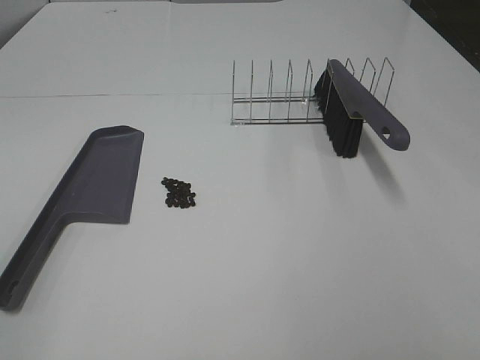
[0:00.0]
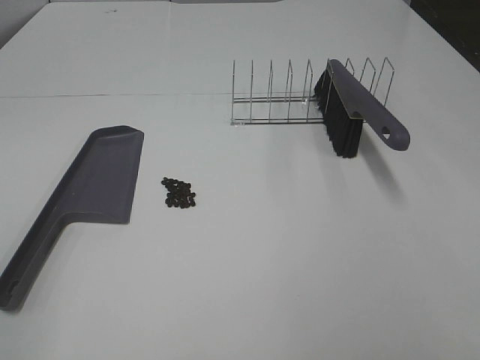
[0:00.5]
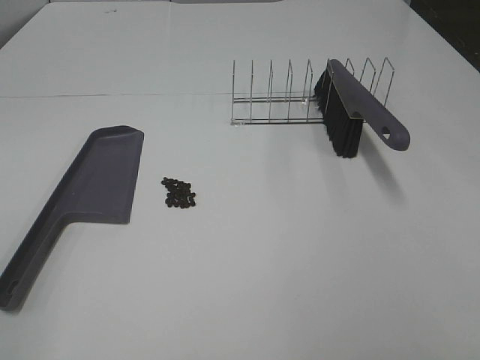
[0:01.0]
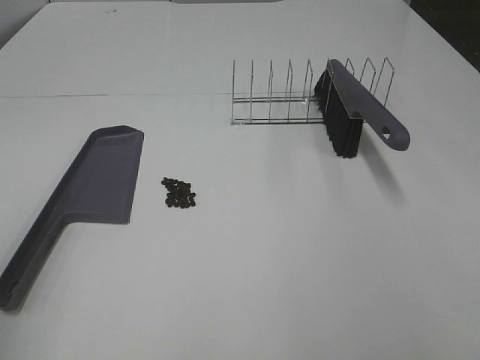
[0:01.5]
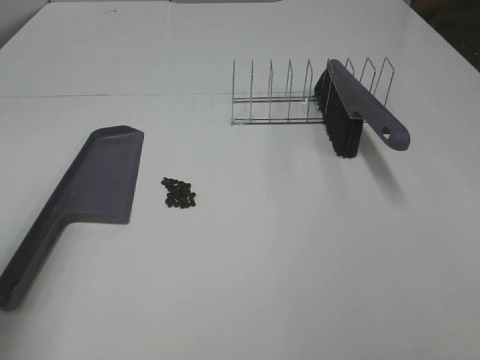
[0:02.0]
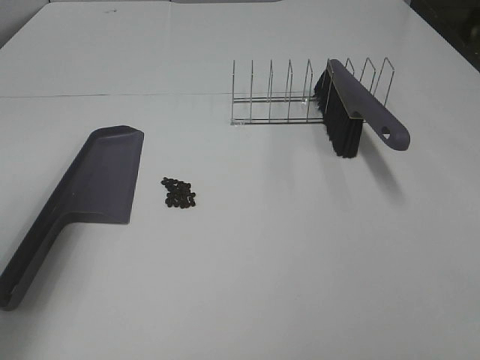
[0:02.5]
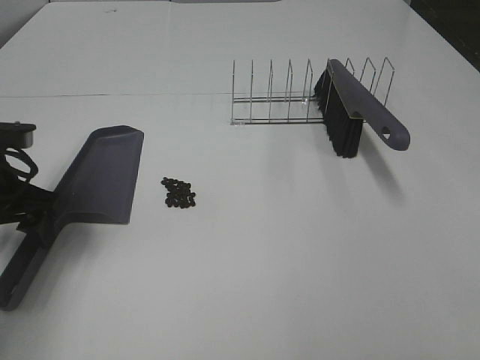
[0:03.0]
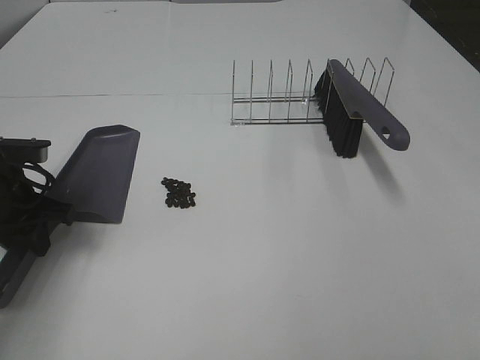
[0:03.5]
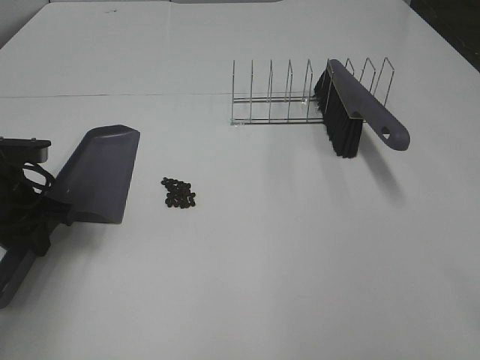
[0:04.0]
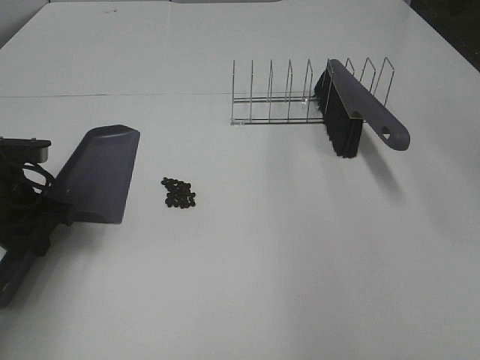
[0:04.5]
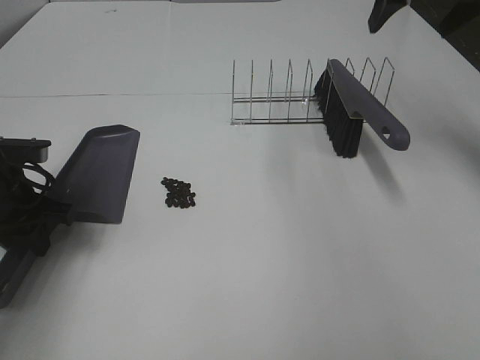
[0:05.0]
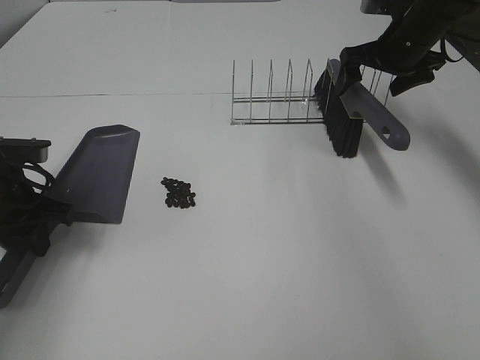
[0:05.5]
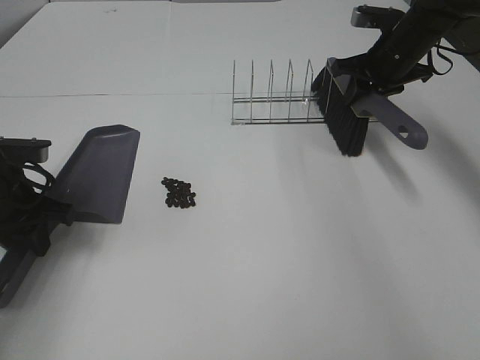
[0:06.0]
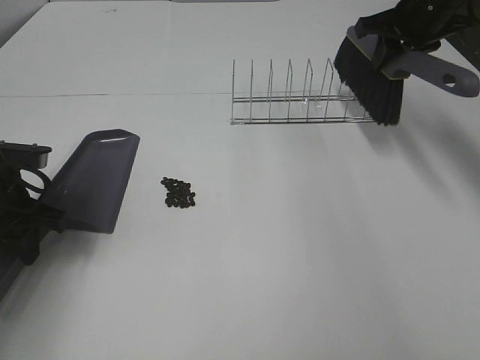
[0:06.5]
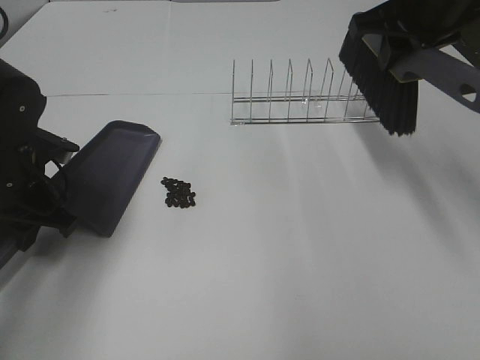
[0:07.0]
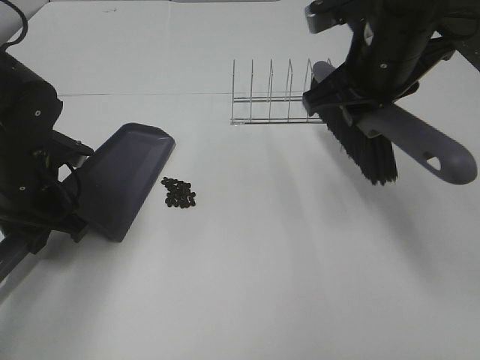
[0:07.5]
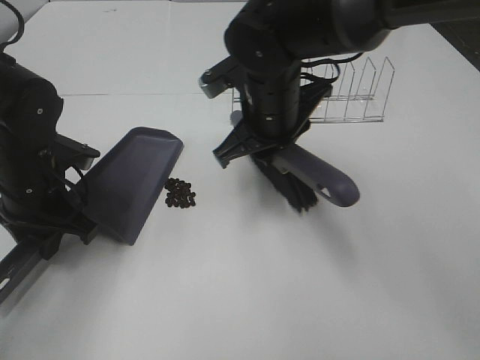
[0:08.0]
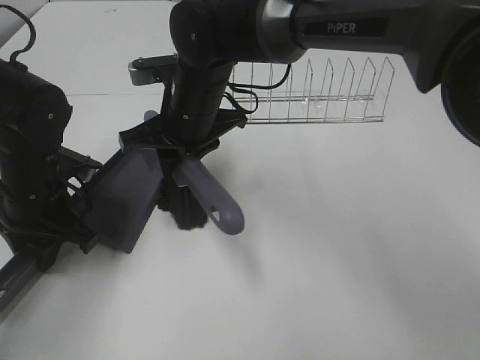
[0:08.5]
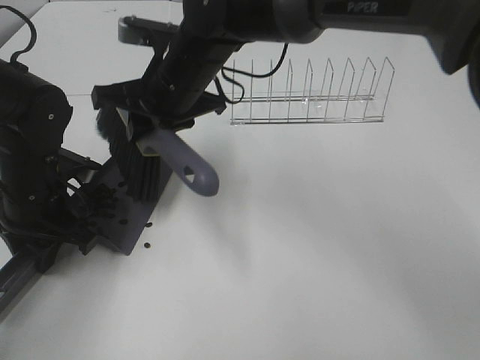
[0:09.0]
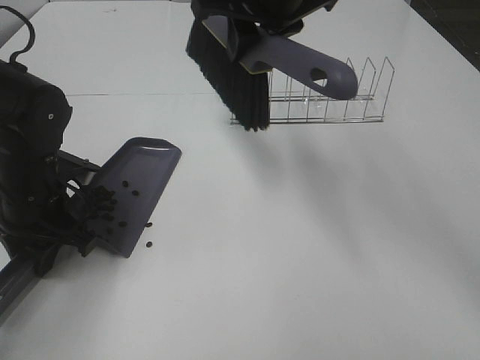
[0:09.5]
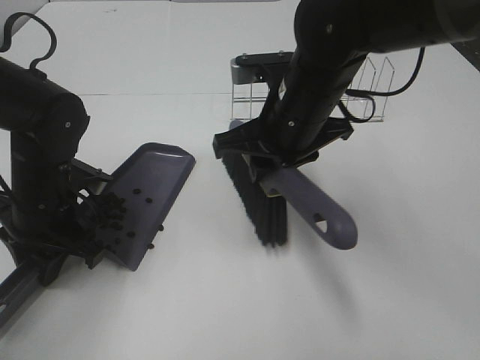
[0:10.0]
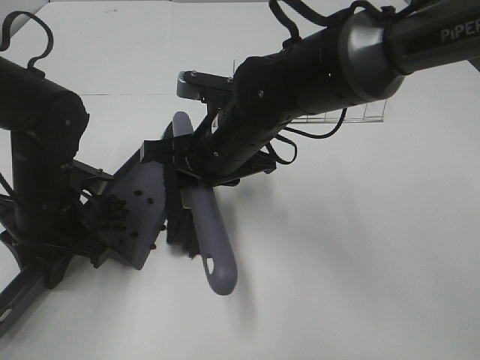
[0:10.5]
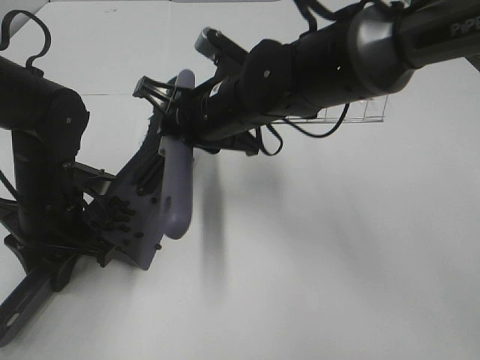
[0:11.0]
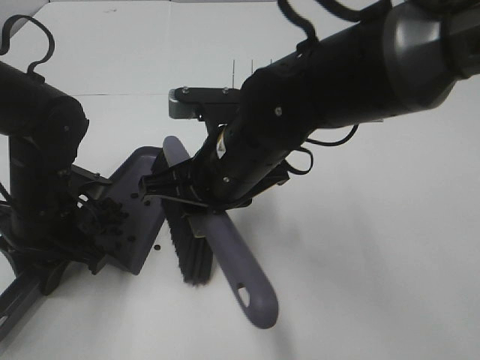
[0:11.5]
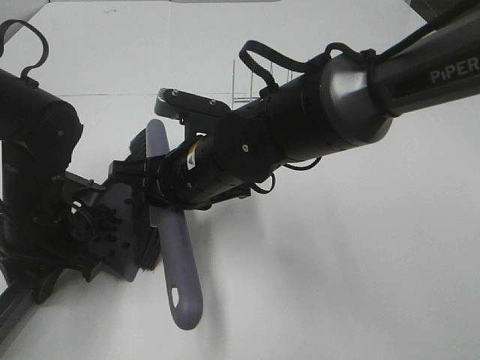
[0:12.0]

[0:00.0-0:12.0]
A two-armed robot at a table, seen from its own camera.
Task of the whole recording: Sweep Coffee Bean.
Step, 0:00.0 to 0:03.5: Left hand: grab the dustpan.
Step, 0:04.0 to 0:06.0: Right hand:grab the broom.
0:00.0 to 0:02.0: The left gripper travels forward by some 15 cm.
0:02.0 to 0:04.0: The left gripper moves forward and downward, some 25 cm, and closes its fingers.
0:04.0 to 0:06.0: The right gripper goes roughly 40 cm forward, and closes up.
0:06.0 to 0:08.0: The right gripper is displaced to the left and backward by roughly 25 cm, while the left gripper shifts about 5 cm to the right.
0:08.0 to 0:10.0: The right gripper travels upward and back again, some 15 cm each way.
0:10.0 to 0:12.0: The right gripper heads to the left and downward, covering approximately 10 cm.

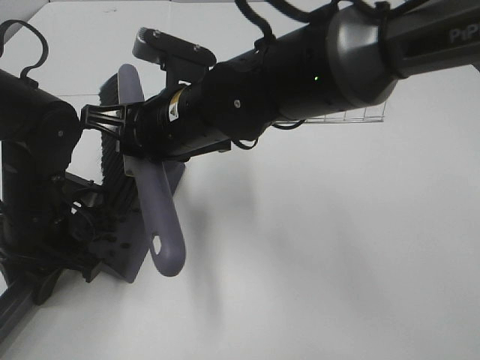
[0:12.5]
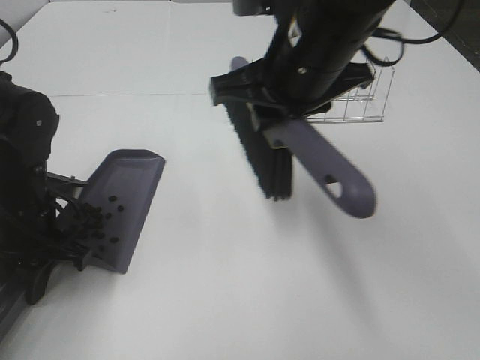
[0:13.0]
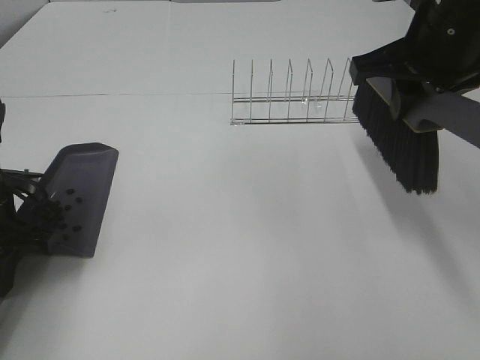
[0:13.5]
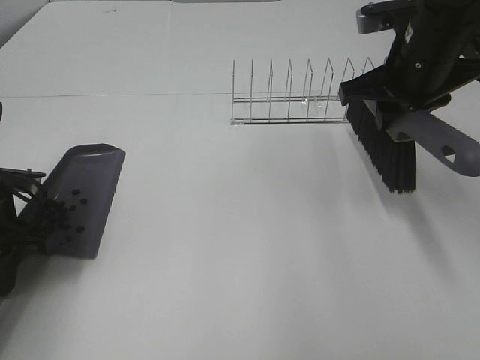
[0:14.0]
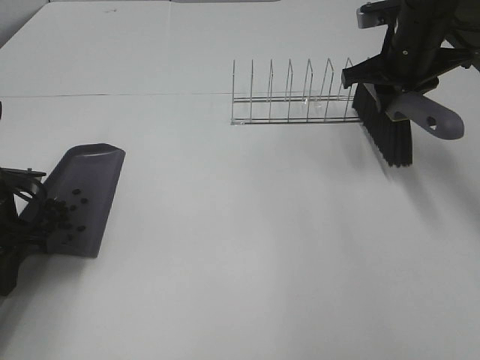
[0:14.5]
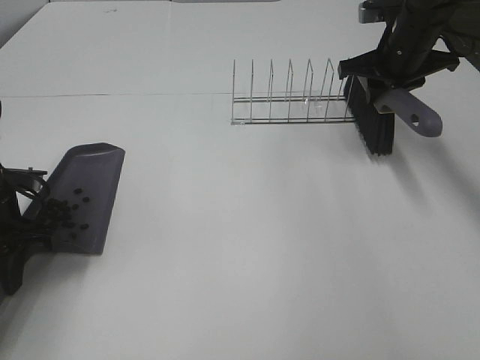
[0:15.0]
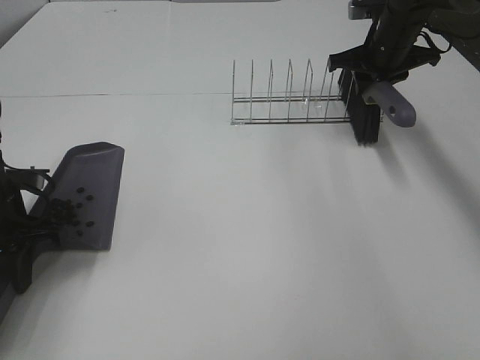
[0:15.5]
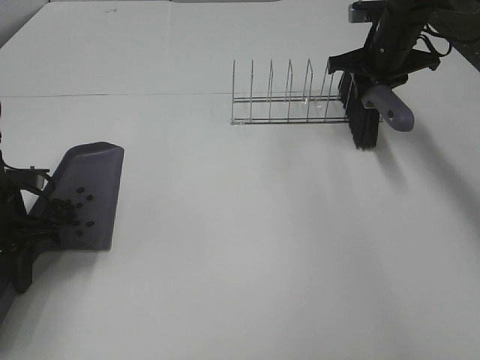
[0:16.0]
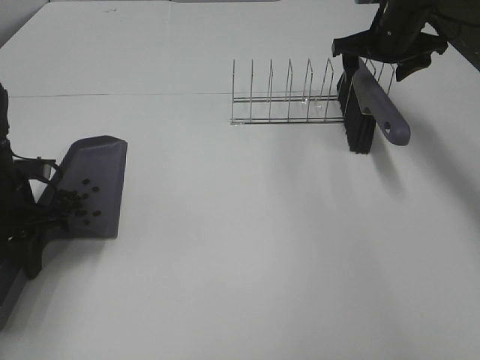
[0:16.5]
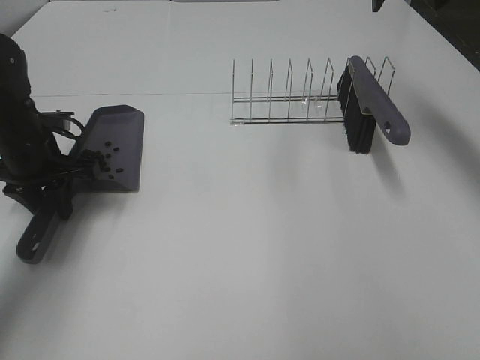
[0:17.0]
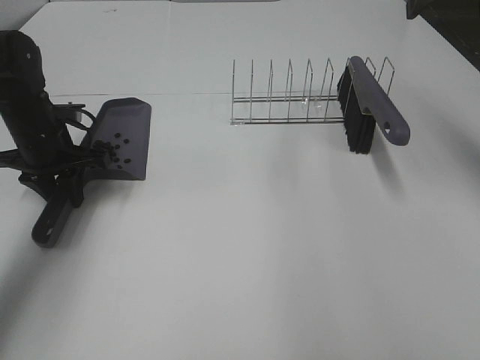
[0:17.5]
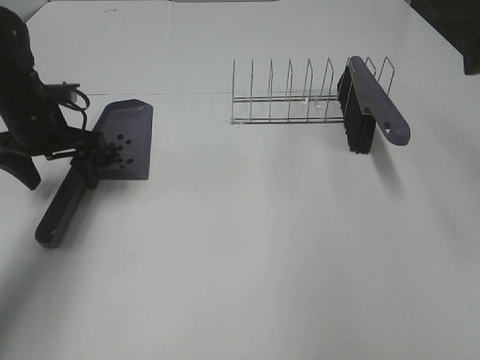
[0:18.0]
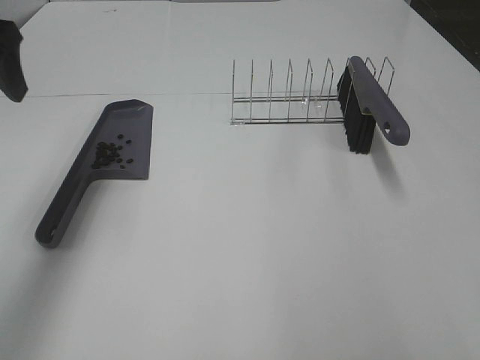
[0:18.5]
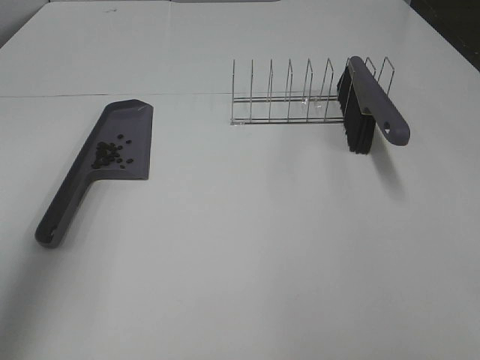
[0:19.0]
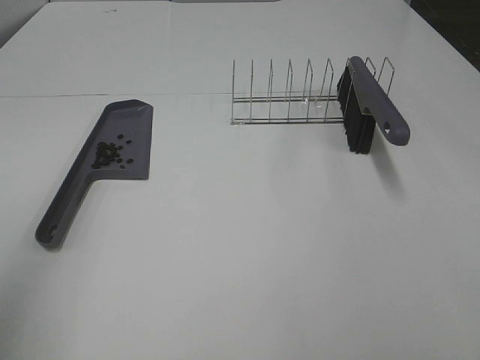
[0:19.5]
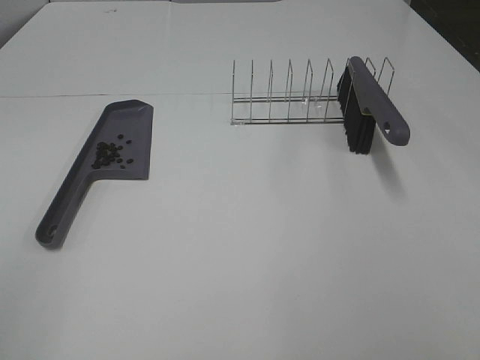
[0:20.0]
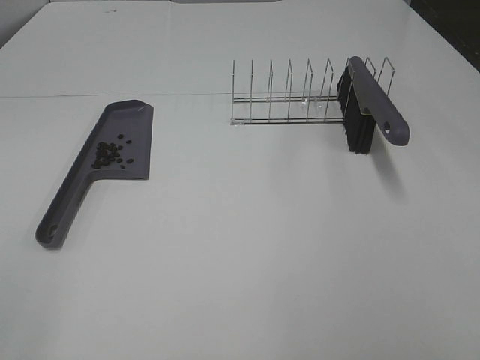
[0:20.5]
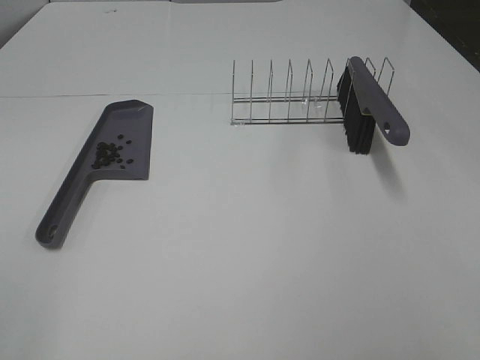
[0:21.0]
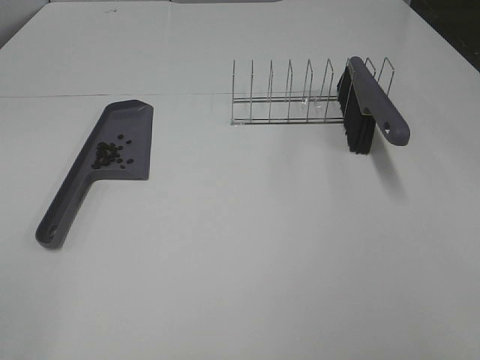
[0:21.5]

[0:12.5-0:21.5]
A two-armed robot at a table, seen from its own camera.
Task of the whole recording: Sweep Coffee Bean.
Step, 0:12.5 to 0:16.0: Right hand:place the broom on the rack.
Step, 0:16.5 to 0:17.5: Left hand:place the dustpan on the table.
0:12.5 to 0:14.5: The right gripper goes some 30 cm to the right and forward. The left gripper shifts approximately 5 cm to the left.
0:14.5 to 0:17.0: The left gripper moves forward, some 10 cm. The right gripper is displaced upward by about 10 cm, and opens up.
0:17.0 to 0:19.5: The left gripper heads backward and upward, covering about 35 cm, and opens its fingers. The right gripper is displaced backward by some 40 cm.
0:19.5 to 0:21.5: The left gripper is displaced backward by approximately 10 cm.

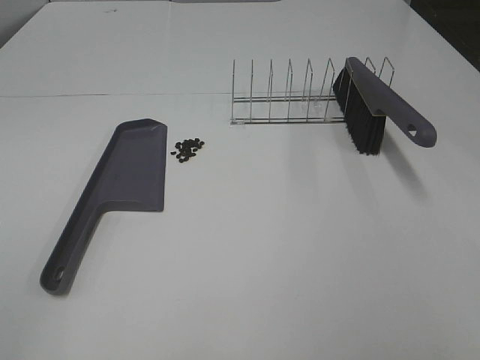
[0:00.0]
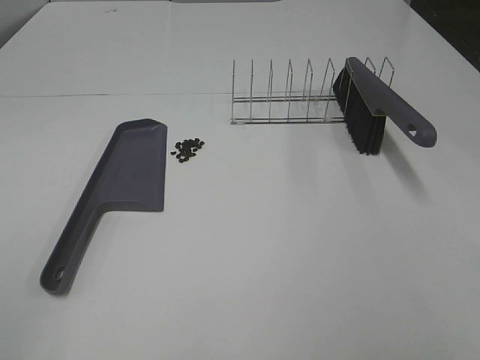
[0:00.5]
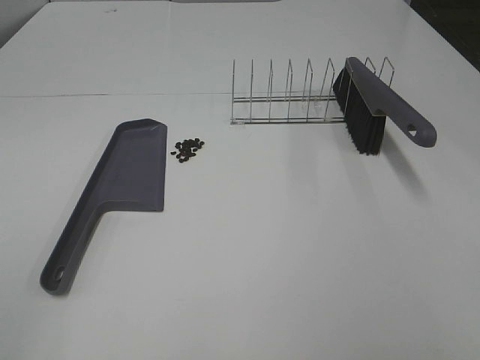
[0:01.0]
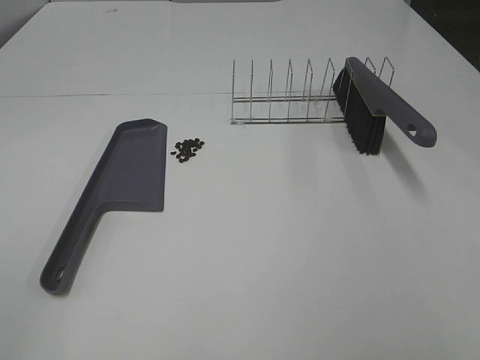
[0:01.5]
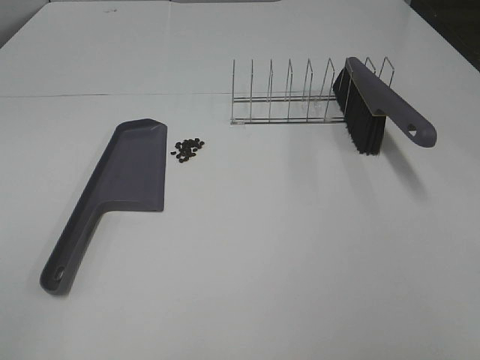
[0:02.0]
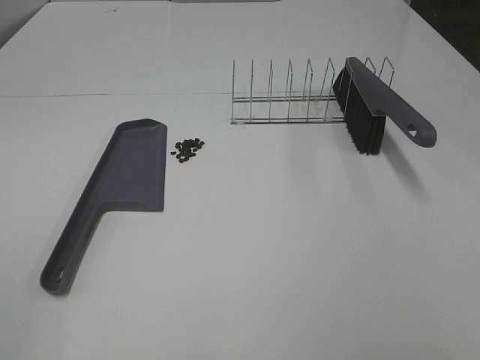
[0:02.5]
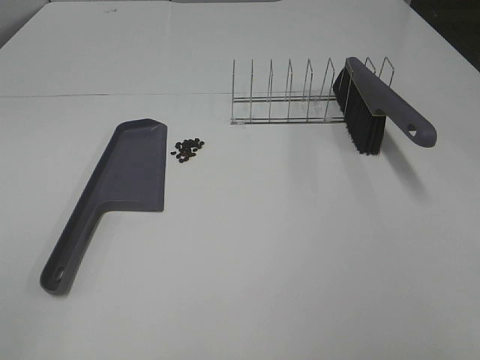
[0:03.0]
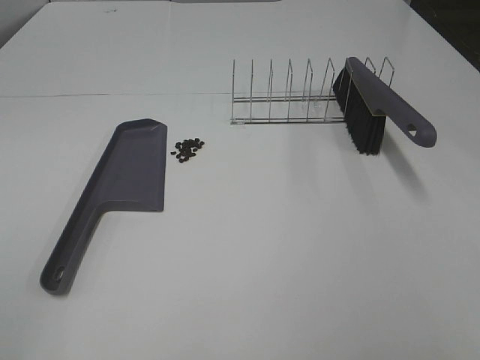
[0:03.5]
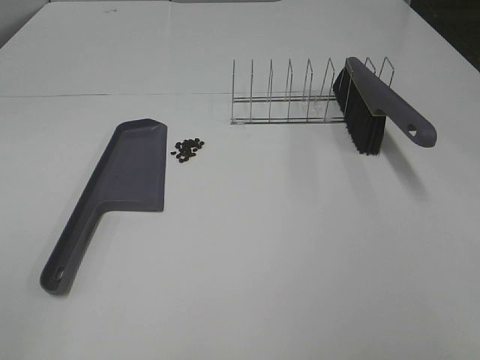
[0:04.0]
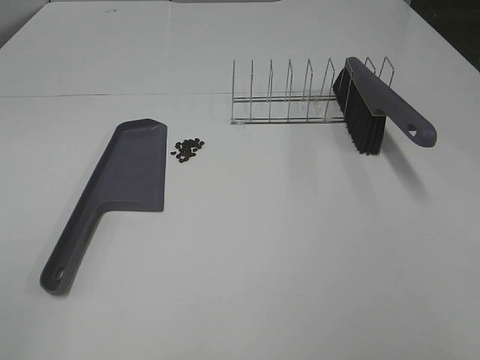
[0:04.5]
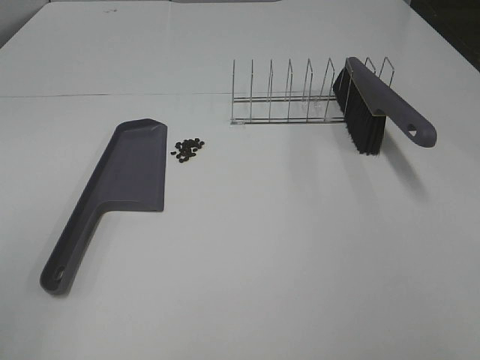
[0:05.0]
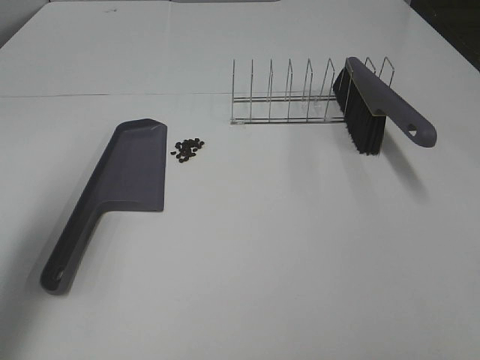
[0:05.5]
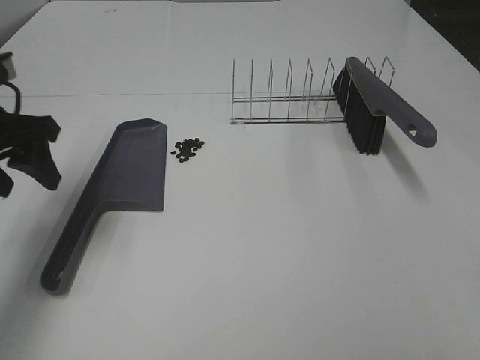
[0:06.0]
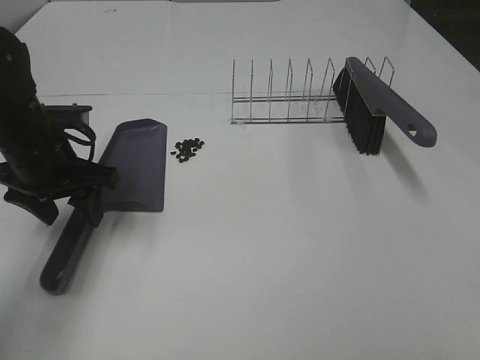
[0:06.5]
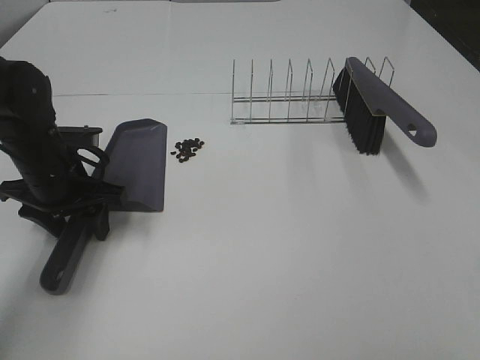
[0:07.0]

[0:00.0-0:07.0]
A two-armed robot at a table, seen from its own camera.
Task of the whole recording: Sweep Coffee Bean.
0:00.0 to 0:03.5: The two grippers keep their place.
0:05.0 to 0:07.0: The left gripper shifts roughly 35 cm forward and downward.
